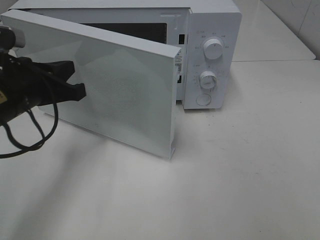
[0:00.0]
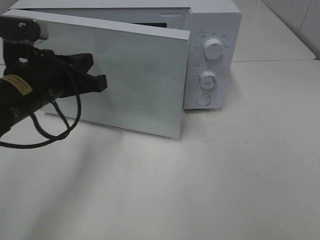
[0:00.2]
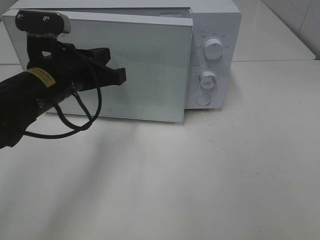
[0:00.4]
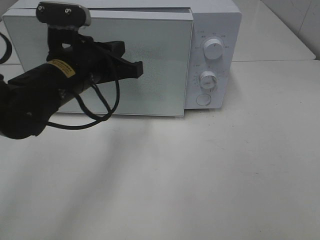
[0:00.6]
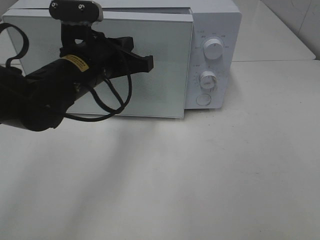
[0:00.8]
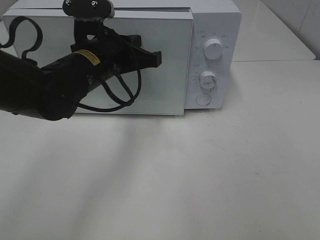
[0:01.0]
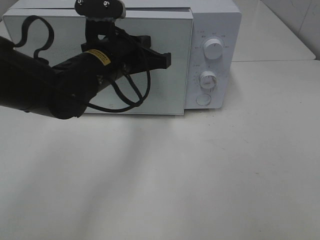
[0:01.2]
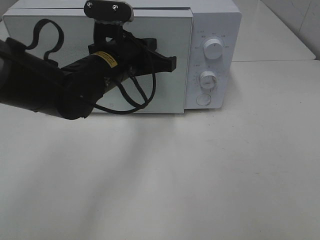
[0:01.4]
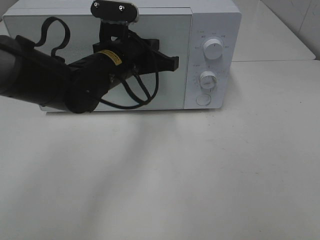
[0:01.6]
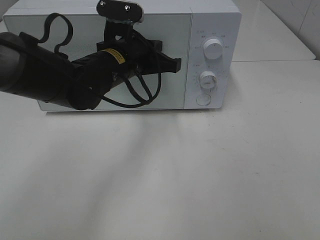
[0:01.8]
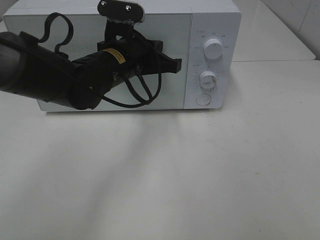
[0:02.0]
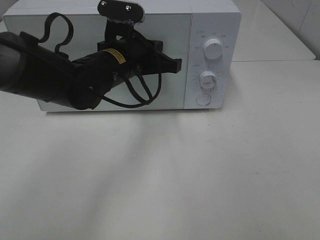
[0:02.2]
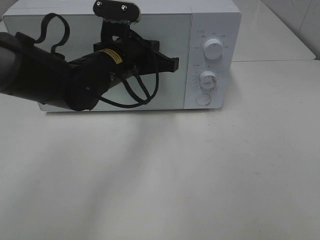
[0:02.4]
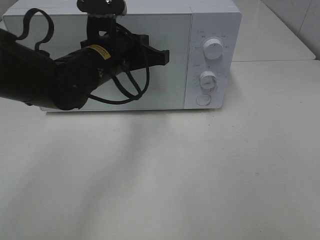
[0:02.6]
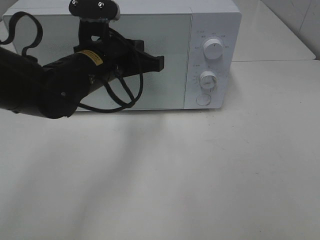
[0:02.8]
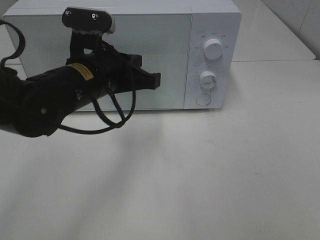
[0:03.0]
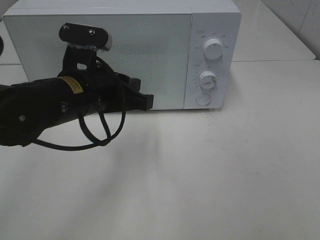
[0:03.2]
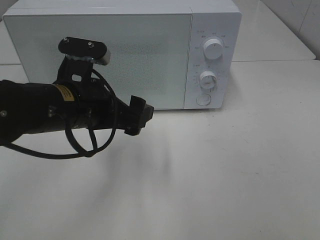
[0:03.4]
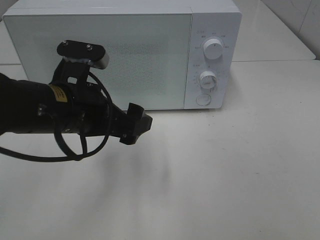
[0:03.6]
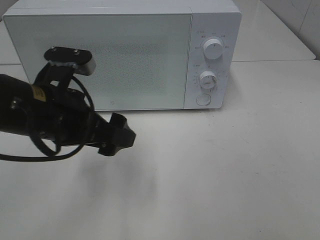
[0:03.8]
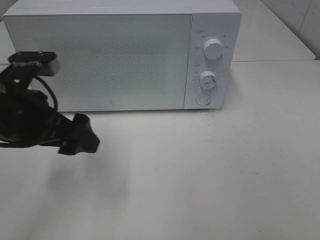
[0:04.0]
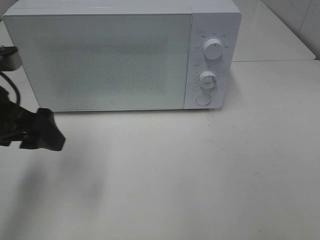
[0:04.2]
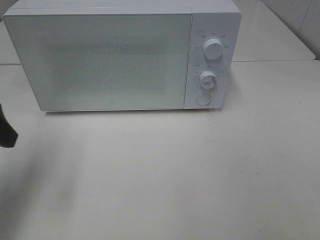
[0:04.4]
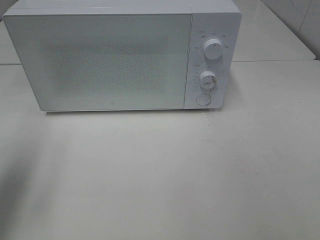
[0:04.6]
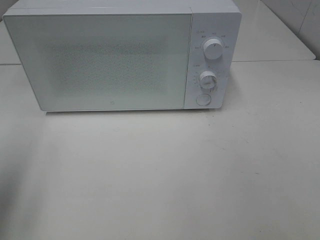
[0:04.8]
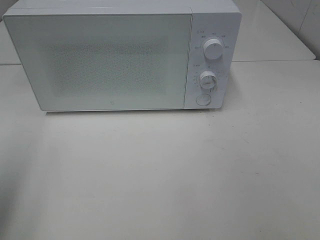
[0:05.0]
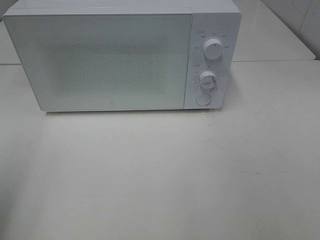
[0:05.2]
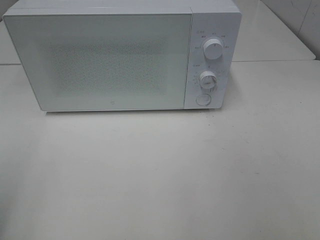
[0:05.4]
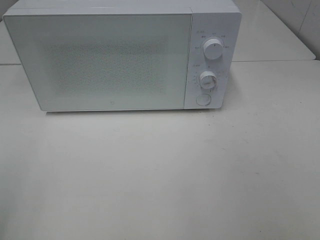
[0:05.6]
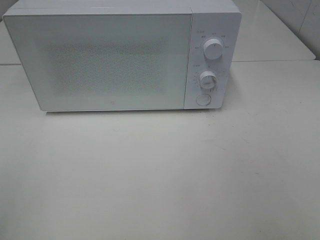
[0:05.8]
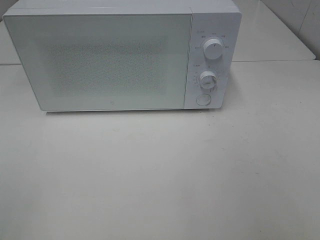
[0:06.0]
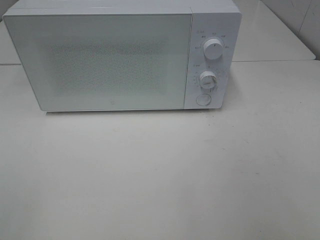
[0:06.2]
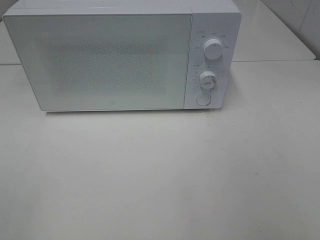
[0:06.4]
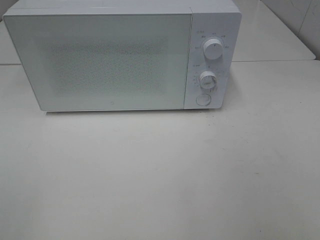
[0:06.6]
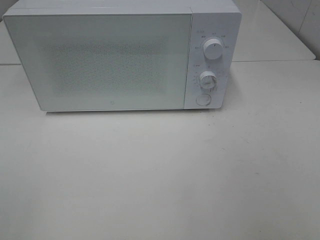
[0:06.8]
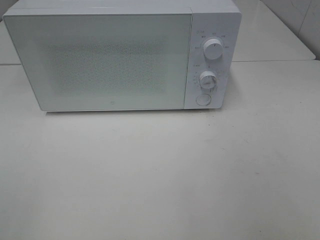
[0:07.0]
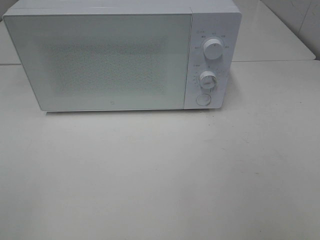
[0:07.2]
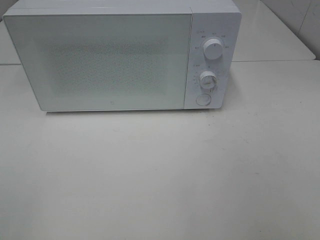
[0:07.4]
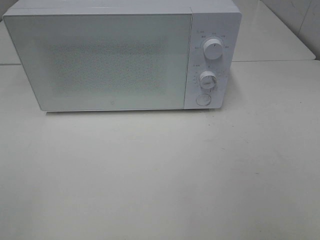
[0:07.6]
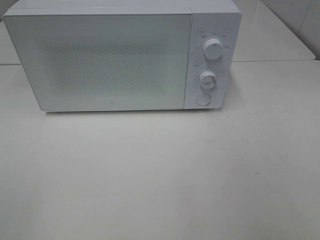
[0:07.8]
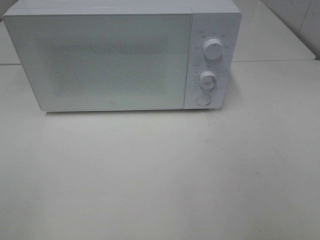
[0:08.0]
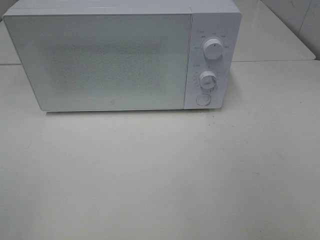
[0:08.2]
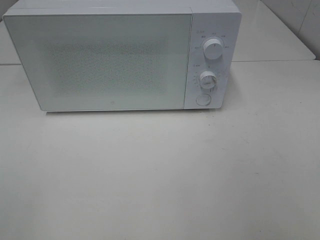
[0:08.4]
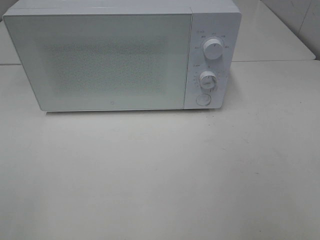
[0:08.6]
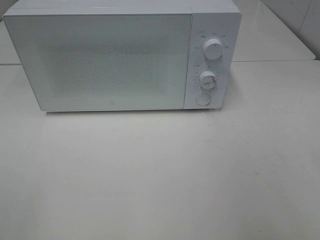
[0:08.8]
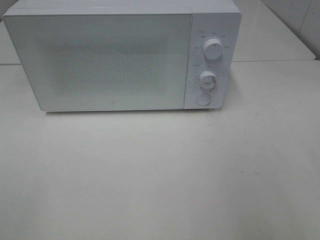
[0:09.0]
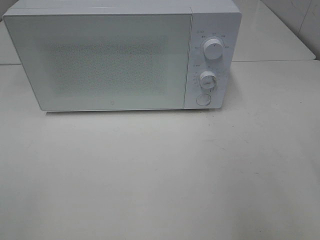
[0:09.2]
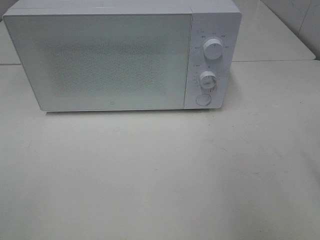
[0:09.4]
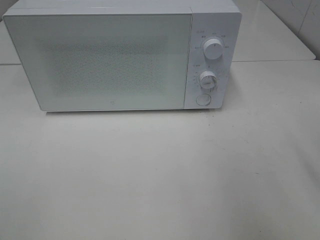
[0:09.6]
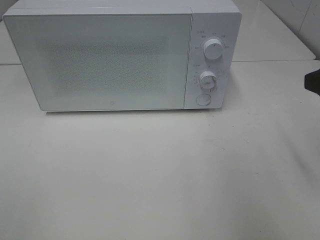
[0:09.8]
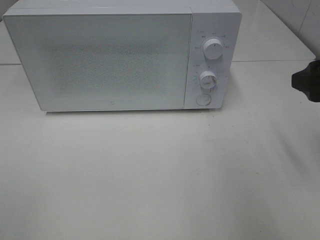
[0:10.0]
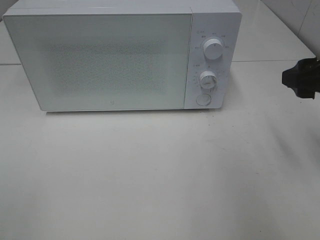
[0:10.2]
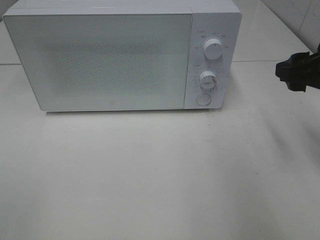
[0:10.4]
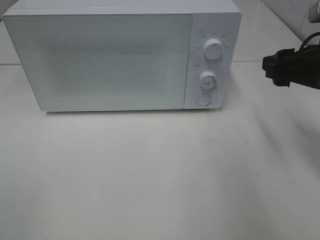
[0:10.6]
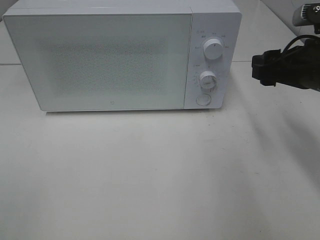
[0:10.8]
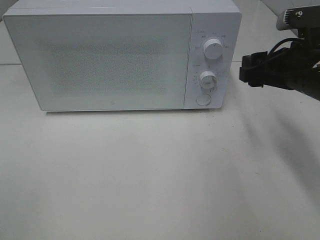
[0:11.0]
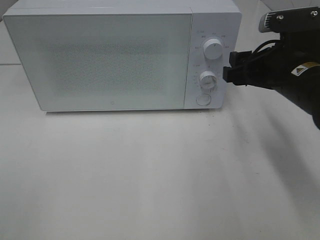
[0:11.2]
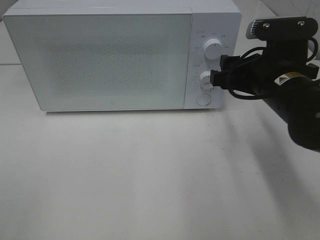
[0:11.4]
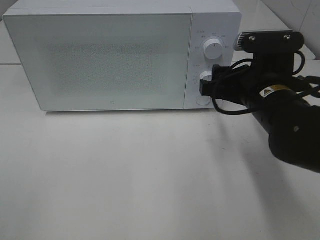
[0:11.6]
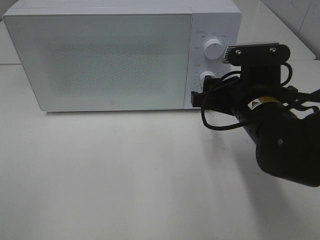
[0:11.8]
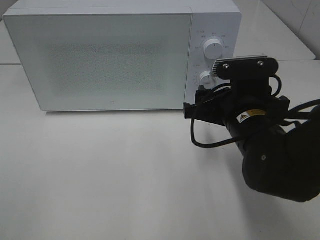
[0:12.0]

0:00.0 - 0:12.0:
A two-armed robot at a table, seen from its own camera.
Task of the whole recording: Heat Sandwich.
Step, 0:00.0 - 0:03.0: Left hand: close the microwave door.
0:00.0 - 0:01.6: The left gripper heads to the right and forward, covering some 15 cm.
0:01.6 - 0:03.0: The left gripper goes roughly 5 cm backward.
0:03.0 - 0:04.4: The left gripper moves to the left and backward, about 20 cm, and opens.
0:04.4 - 0:06.0: The left gripper heads backward, covering some 20 cm.
0:06.0 - 0:07.6: Both grippers stay about where they are.
0:09.0 - 0:10.4: The right gripper heads forward and downward, covering approximately 15 cm.
0:10.4 - 0:12.0: The right gripper travels to the left and downward by some 15 cm.

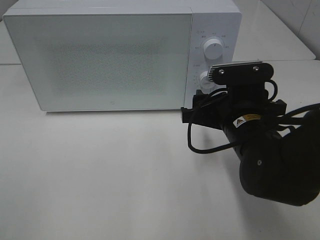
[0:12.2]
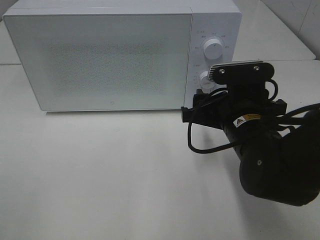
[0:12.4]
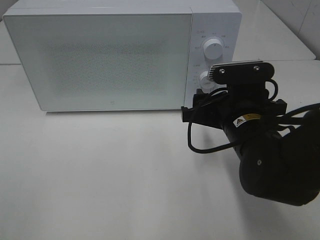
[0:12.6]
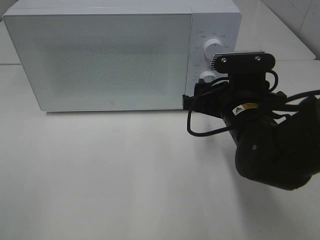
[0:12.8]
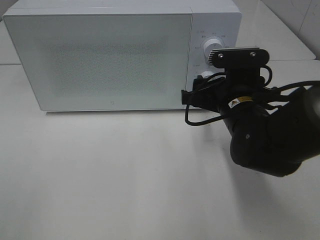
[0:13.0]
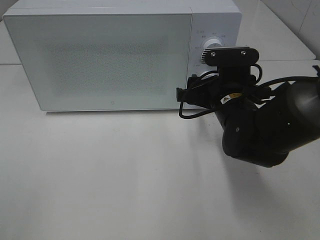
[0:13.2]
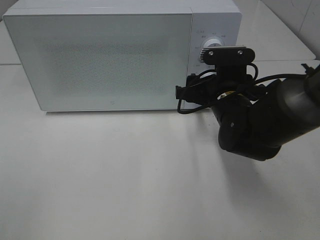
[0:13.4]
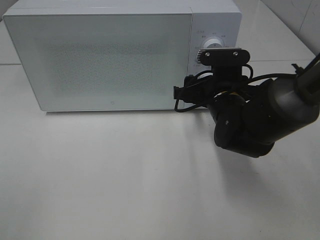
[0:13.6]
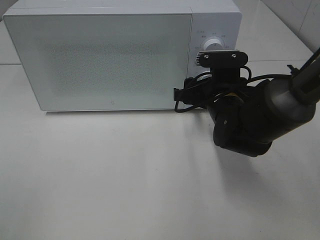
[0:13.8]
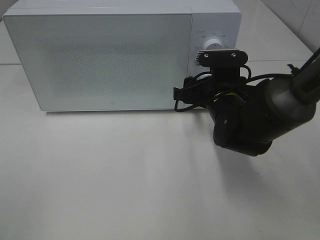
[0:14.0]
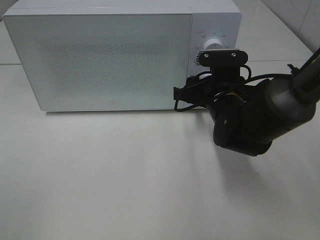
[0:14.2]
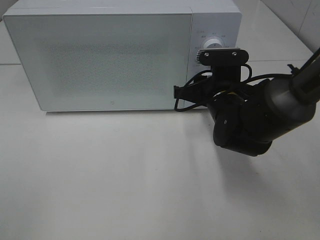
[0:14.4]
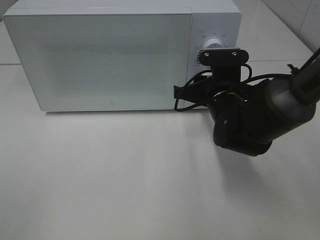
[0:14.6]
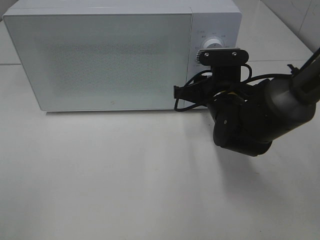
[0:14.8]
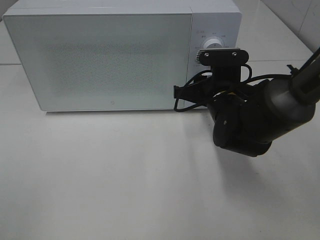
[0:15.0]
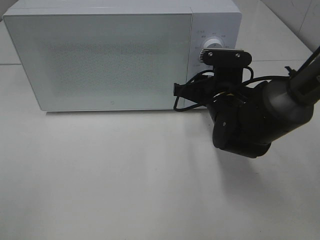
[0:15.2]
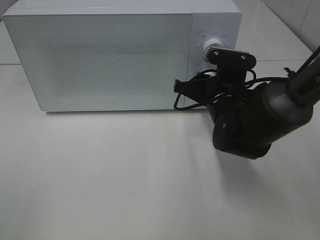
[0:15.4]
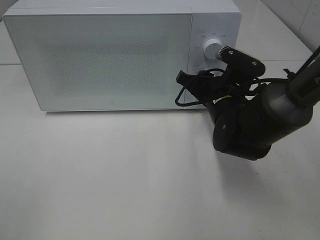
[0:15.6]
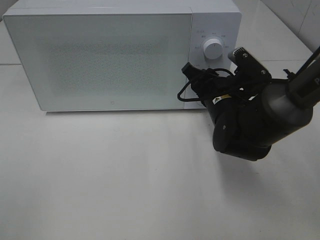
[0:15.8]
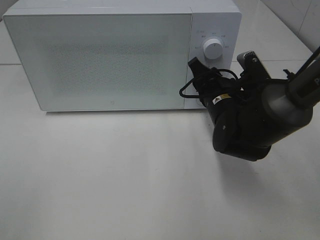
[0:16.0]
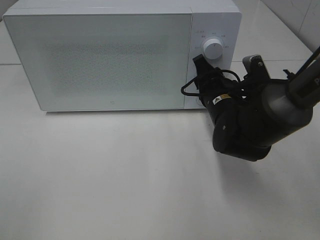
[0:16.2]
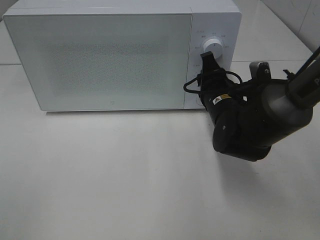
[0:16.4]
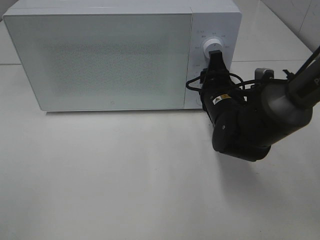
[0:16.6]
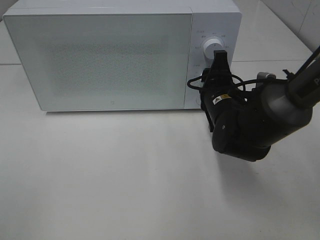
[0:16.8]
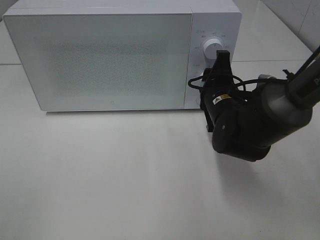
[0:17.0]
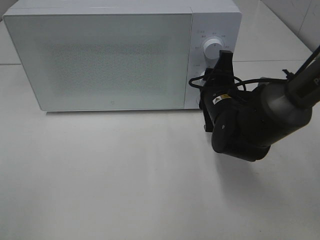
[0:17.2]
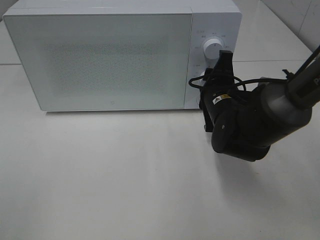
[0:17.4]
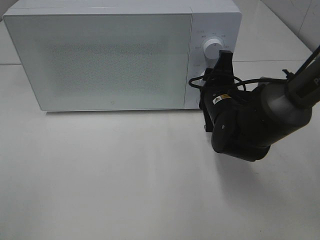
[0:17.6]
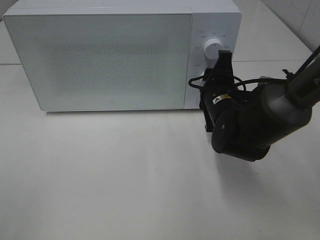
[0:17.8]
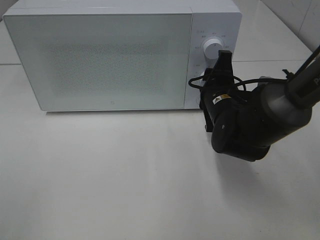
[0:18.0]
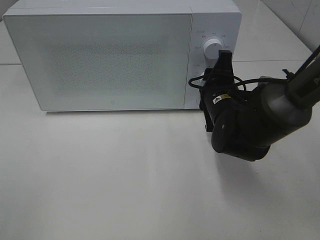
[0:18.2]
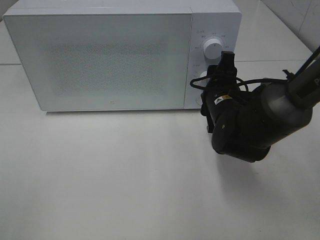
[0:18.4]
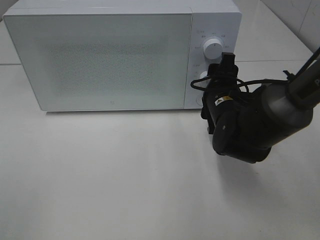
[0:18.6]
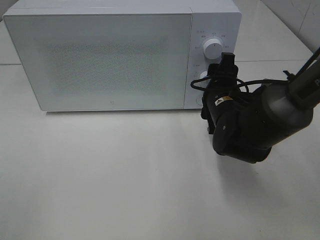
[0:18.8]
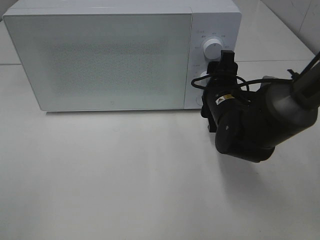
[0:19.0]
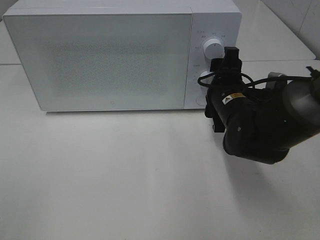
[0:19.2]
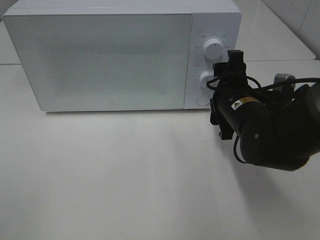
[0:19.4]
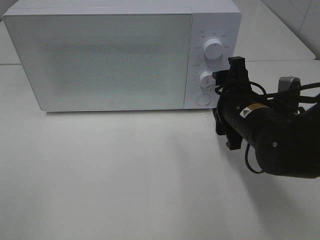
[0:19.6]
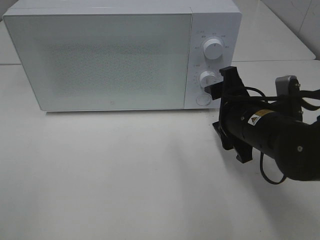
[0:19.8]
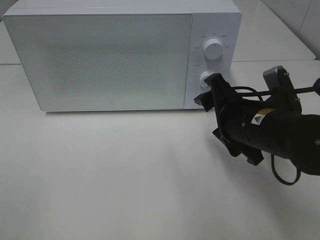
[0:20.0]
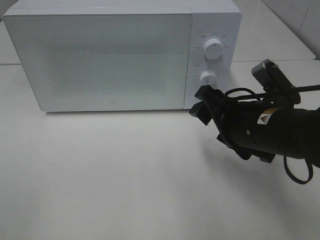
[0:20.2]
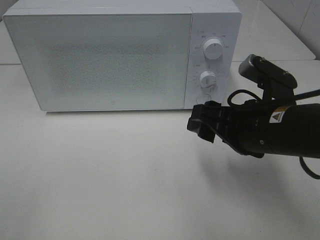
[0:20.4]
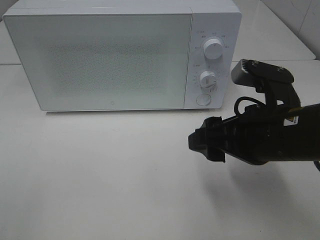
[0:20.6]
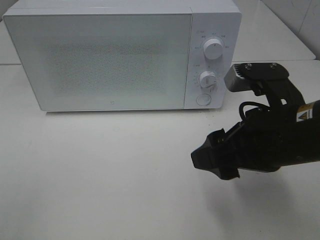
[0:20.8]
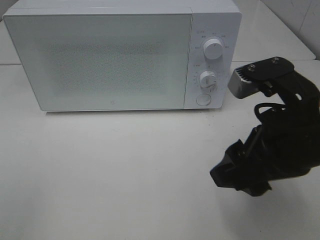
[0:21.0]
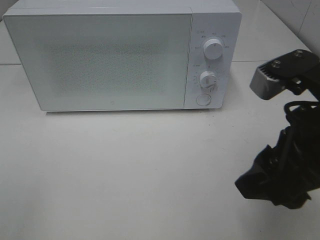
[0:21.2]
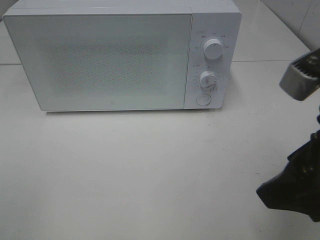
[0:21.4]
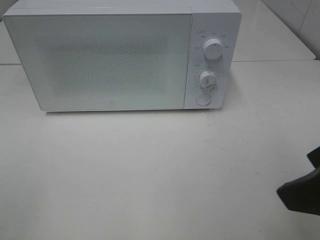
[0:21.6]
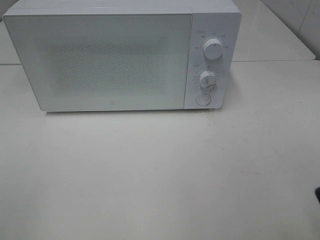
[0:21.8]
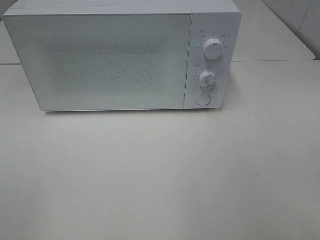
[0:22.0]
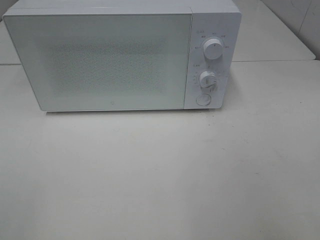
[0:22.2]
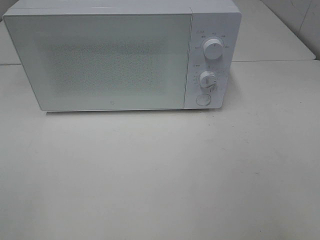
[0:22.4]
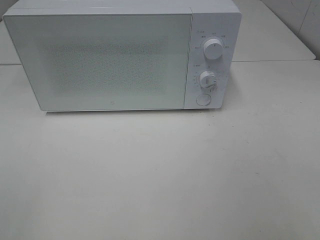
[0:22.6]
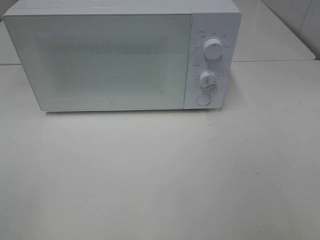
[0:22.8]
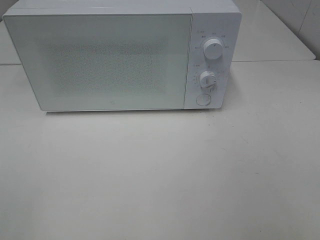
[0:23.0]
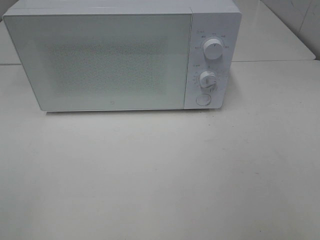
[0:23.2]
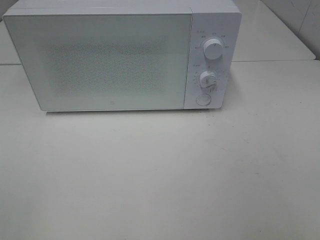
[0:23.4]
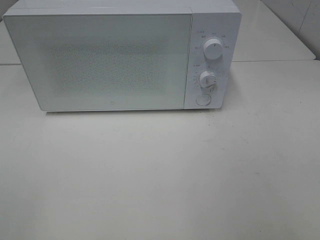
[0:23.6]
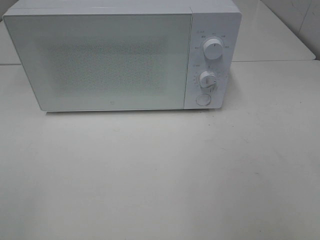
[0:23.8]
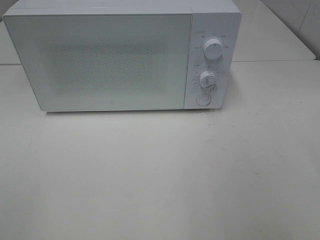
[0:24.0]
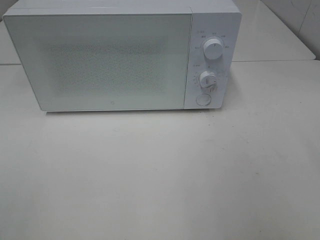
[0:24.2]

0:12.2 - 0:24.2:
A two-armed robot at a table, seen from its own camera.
Task of the whole recording: Heat Sandwich.
Step, 0:12.2 - 0:19.4: Right hand: twist timer button.
0:12.2 - 0:13.8: The right gripper heads forward, covering roughly 10 cm.
0:13.8 - 0:15.2: The right gripper closes.
0:16.6 - 0:18.2: There are only small adjustments of the grippers.
0:18.2 - 0:19.8: The right gripper is displaced backward by about 5 cm.
0:19.8 - 0:21.2: The right gripper goes some 15 cm upward and backward.
0:21.2 - 0:22.6: The right gripper shifts roughly 20 cm backward and to the right.
